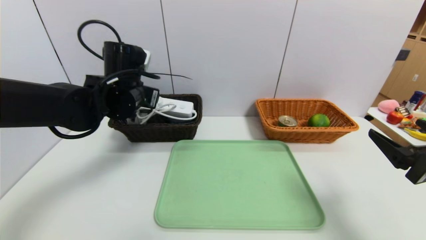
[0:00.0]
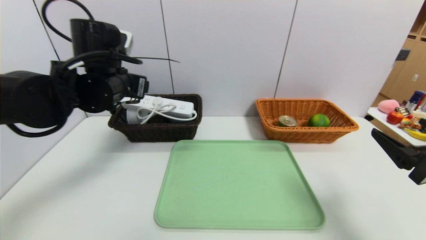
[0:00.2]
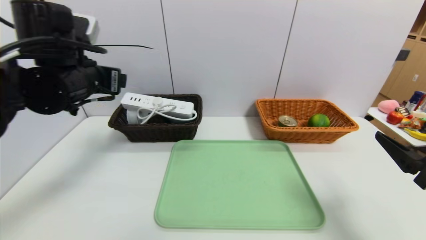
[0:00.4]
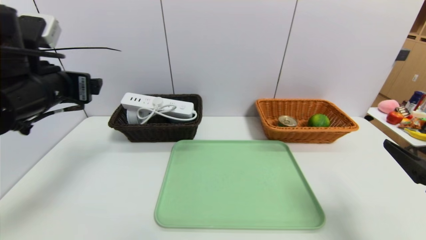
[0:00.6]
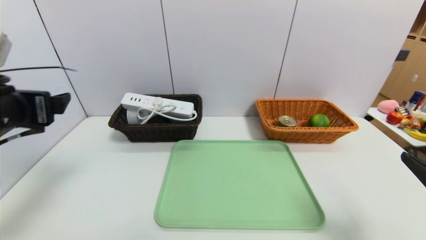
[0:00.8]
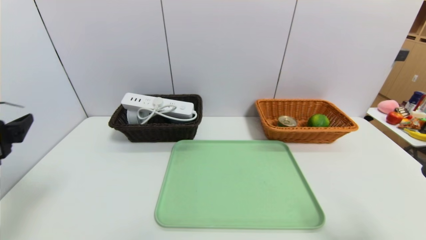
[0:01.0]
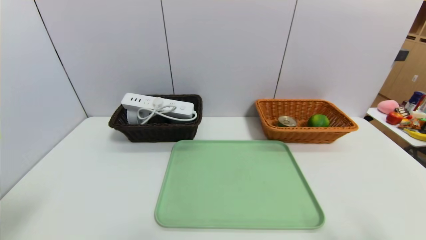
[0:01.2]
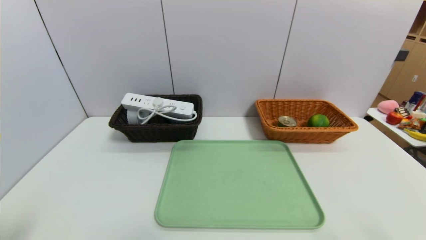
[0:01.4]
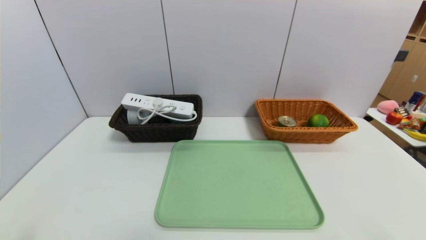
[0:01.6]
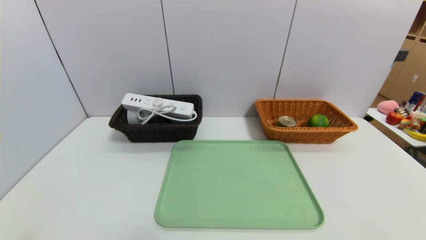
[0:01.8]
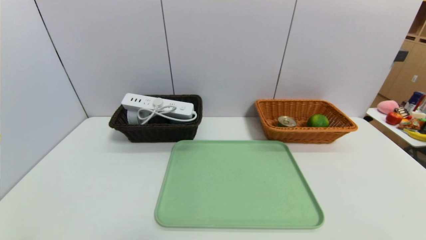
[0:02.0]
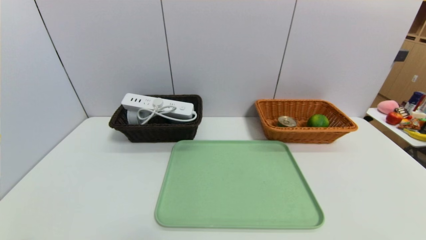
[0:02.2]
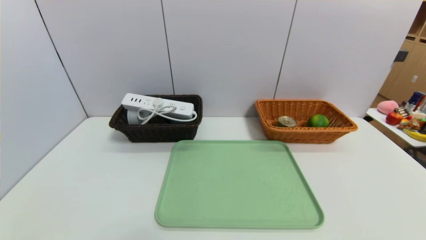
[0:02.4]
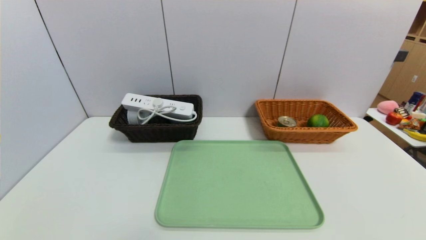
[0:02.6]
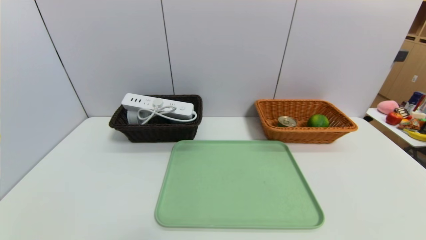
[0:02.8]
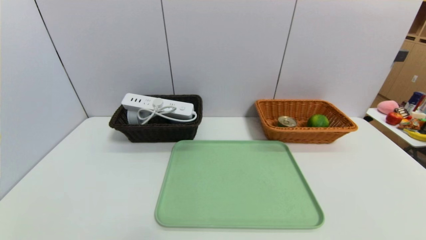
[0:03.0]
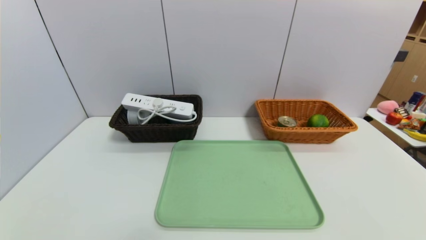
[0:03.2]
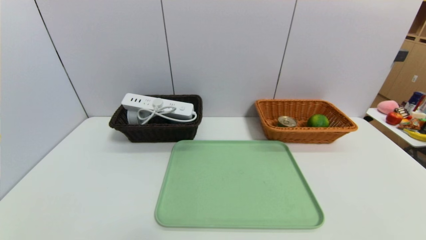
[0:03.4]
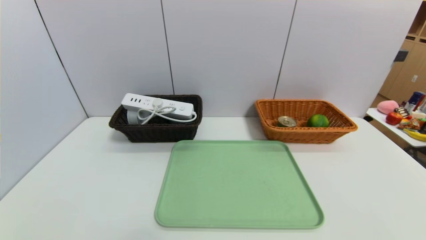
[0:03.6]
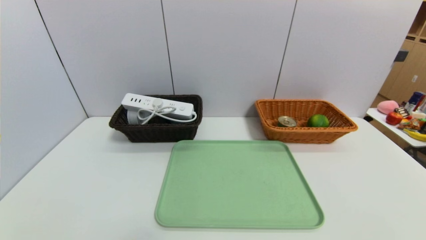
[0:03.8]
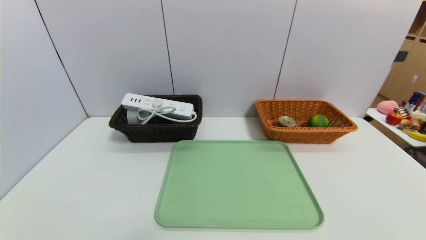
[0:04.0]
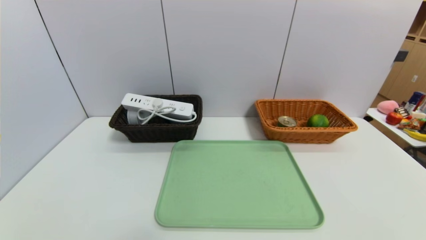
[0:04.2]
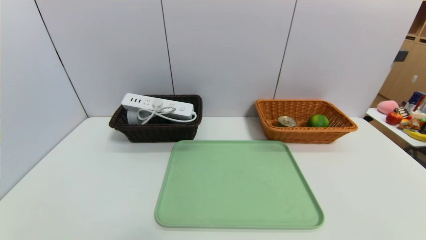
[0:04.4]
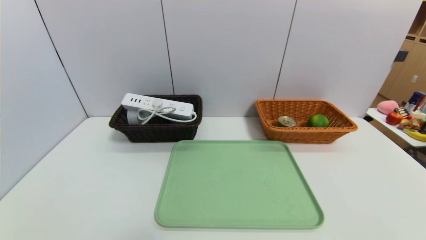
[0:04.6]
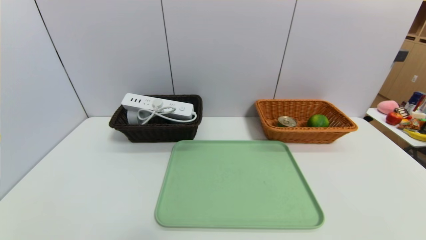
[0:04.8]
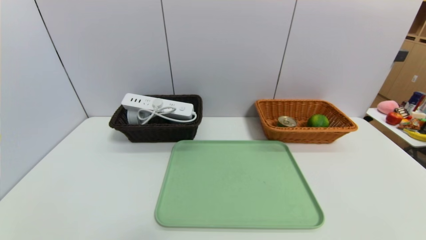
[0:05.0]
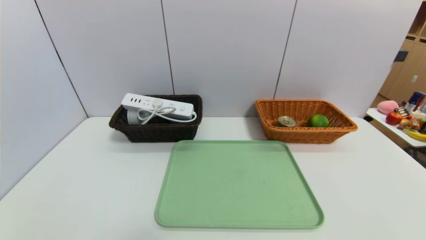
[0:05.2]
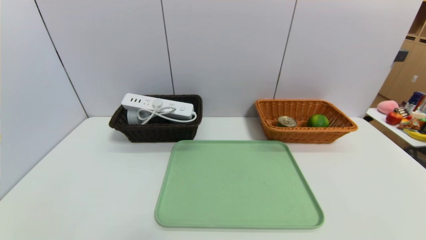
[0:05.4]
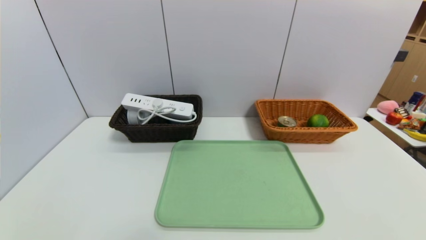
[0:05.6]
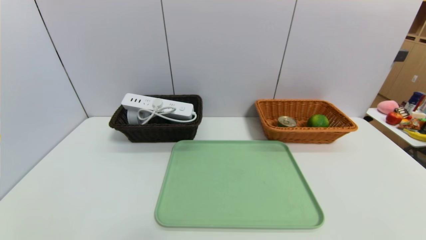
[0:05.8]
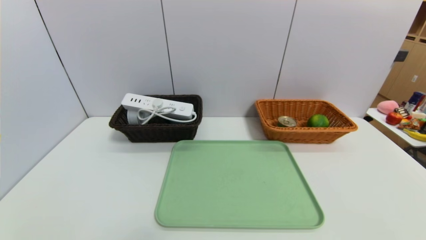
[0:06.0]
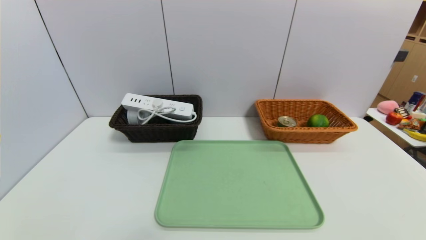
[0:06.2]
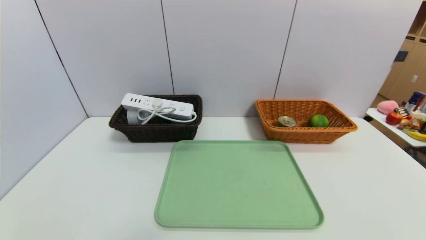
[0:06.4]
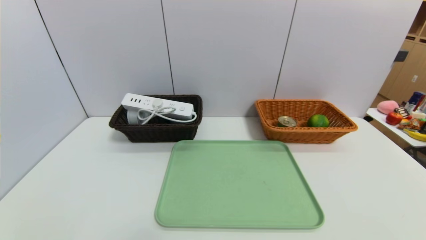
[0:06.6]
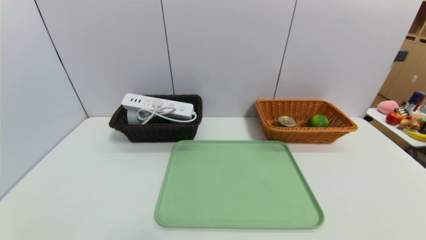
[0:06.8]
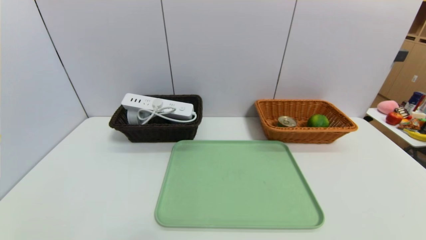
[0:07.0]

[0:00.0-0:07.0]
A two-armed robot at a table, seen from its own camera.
Task of the whole recording: place the food in the right basket with the right gripper, and place the non food items in the left basket with the left gripper.
0:00.0 to 0:01.4: The left gripper is displaced backward and to the left by roughly 35 cm. Meanwhile the right gripper heads backward, covering some 10 cm.
0:04.2 to 0:07.0: Both grippers stay about where they are.

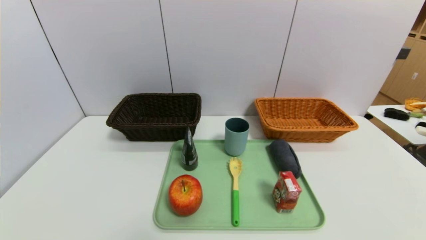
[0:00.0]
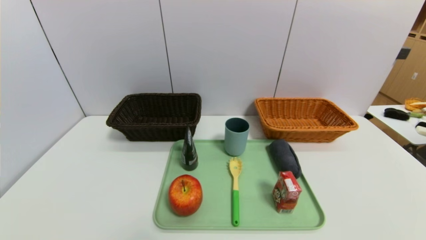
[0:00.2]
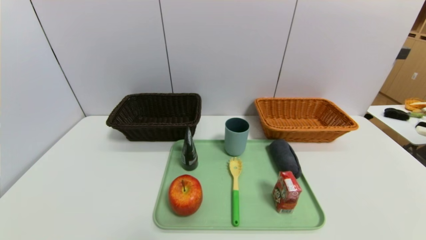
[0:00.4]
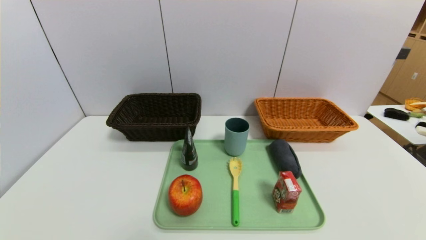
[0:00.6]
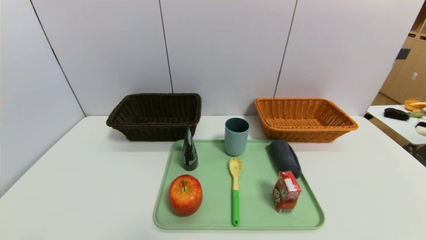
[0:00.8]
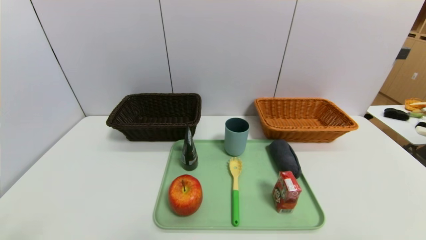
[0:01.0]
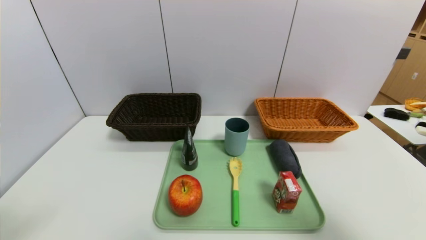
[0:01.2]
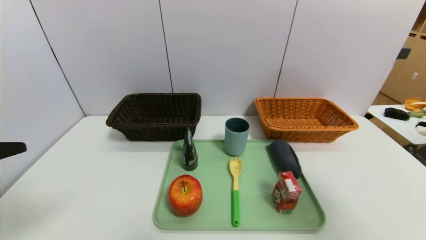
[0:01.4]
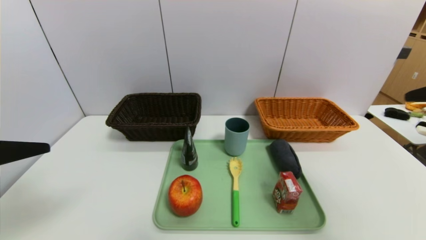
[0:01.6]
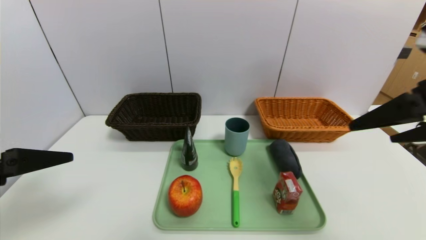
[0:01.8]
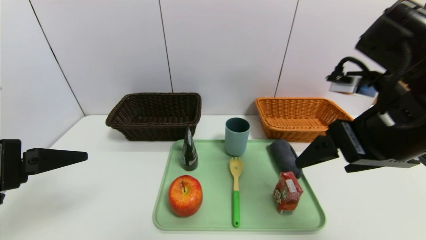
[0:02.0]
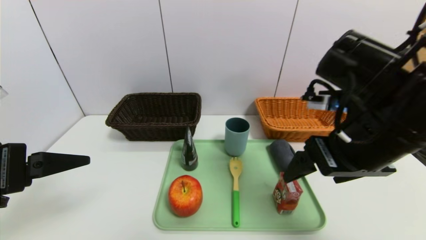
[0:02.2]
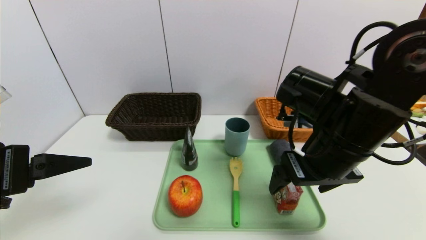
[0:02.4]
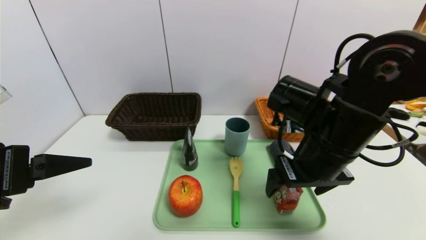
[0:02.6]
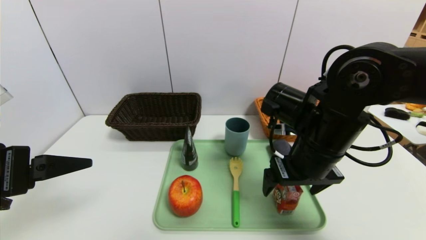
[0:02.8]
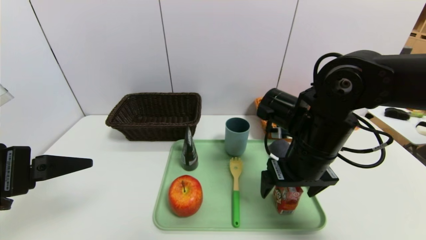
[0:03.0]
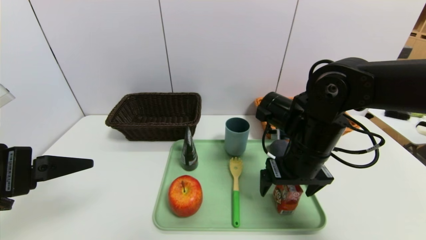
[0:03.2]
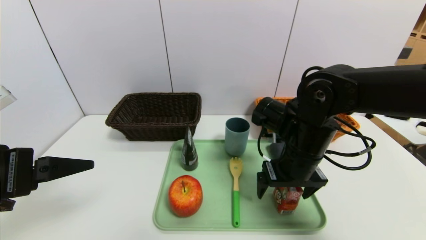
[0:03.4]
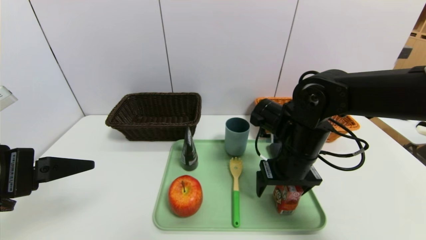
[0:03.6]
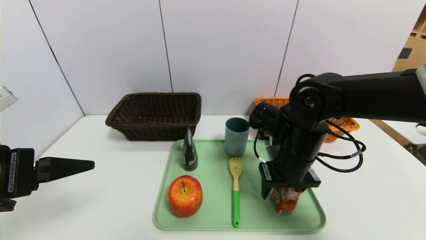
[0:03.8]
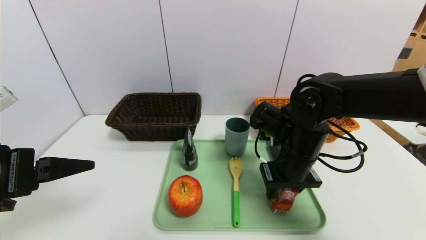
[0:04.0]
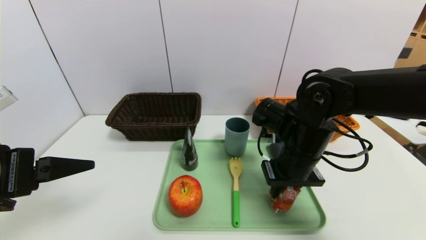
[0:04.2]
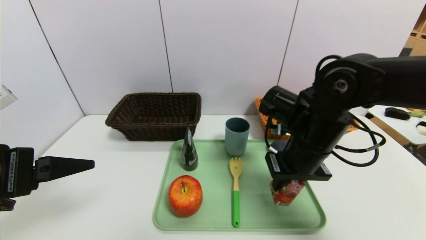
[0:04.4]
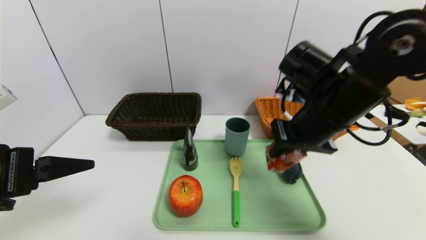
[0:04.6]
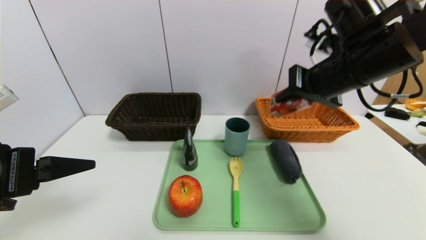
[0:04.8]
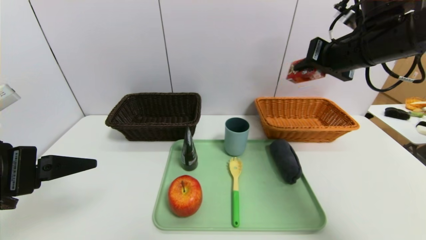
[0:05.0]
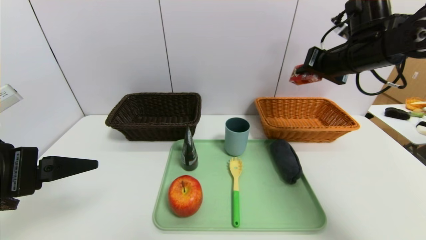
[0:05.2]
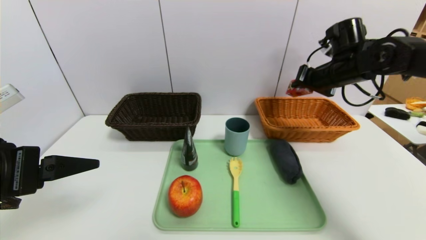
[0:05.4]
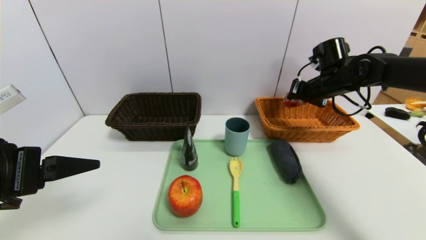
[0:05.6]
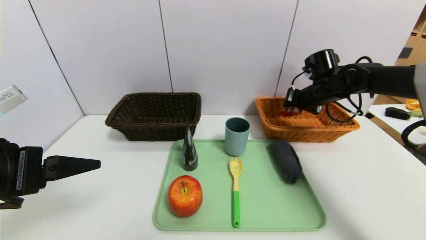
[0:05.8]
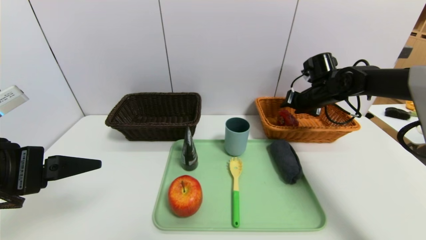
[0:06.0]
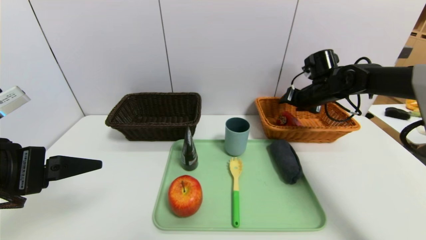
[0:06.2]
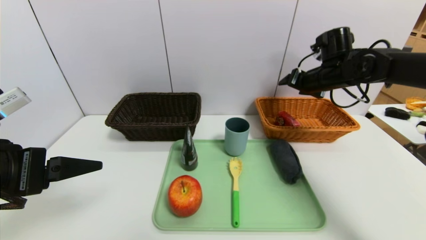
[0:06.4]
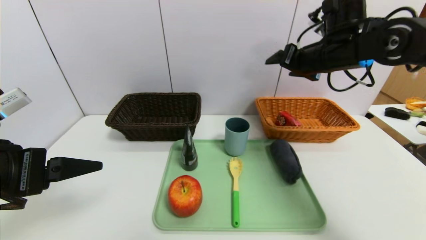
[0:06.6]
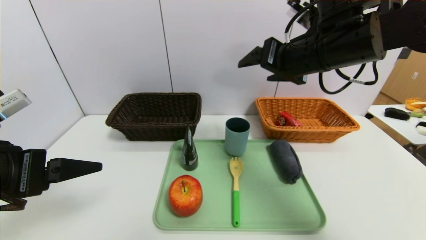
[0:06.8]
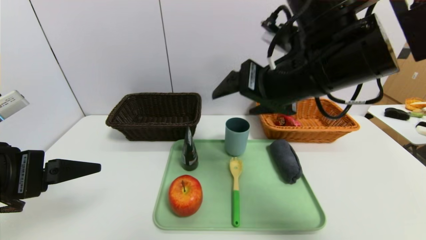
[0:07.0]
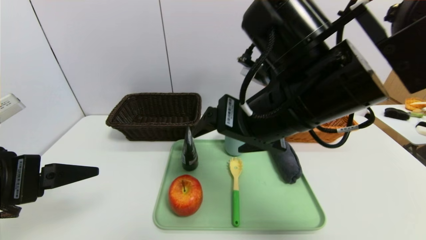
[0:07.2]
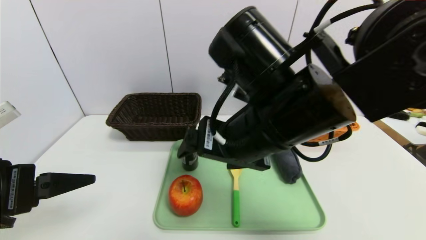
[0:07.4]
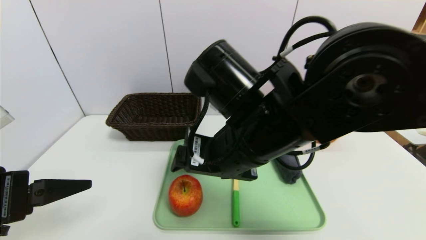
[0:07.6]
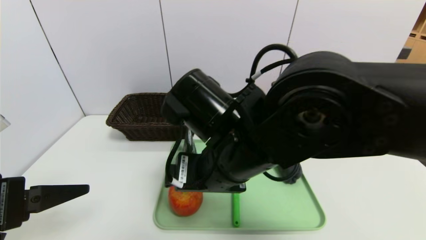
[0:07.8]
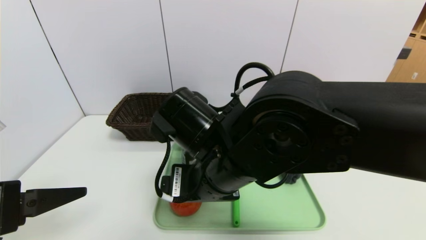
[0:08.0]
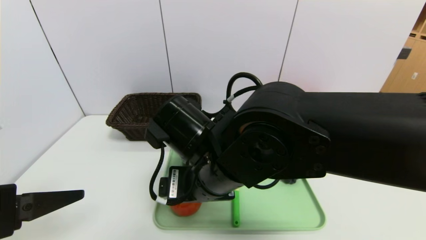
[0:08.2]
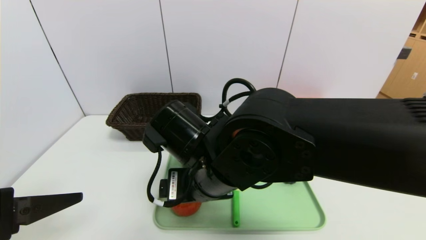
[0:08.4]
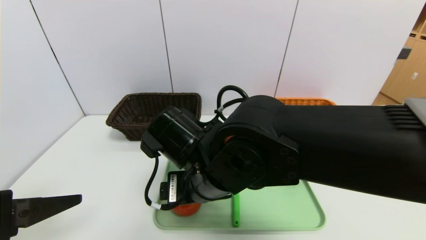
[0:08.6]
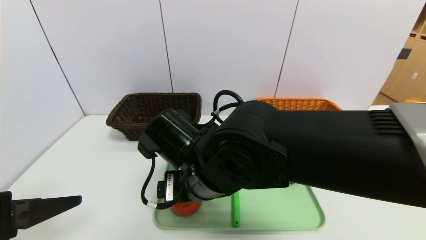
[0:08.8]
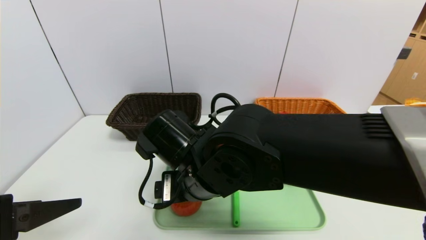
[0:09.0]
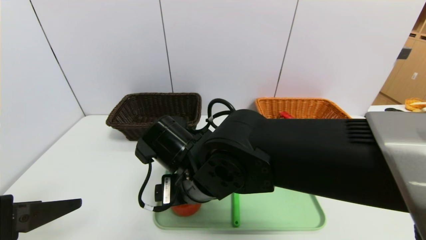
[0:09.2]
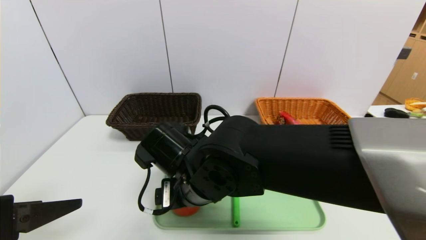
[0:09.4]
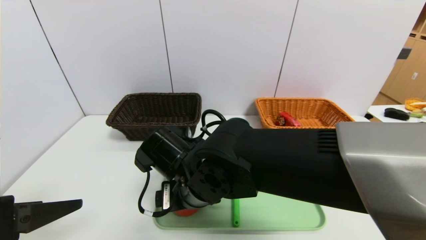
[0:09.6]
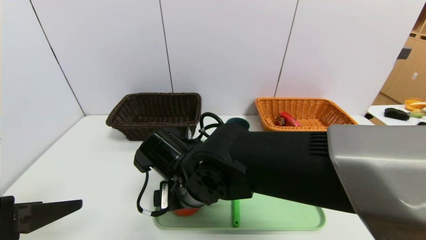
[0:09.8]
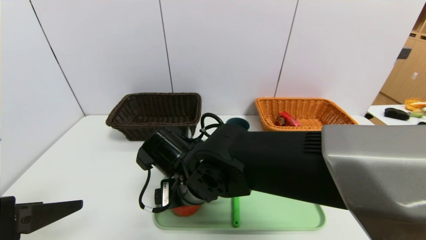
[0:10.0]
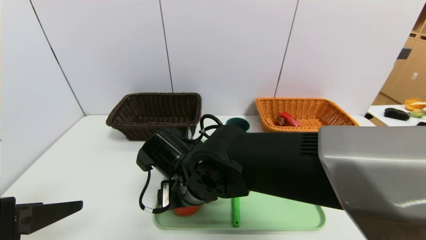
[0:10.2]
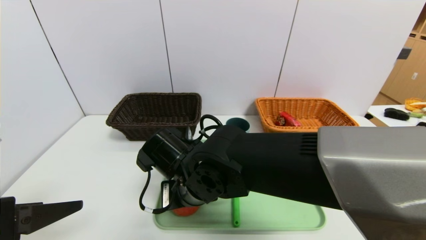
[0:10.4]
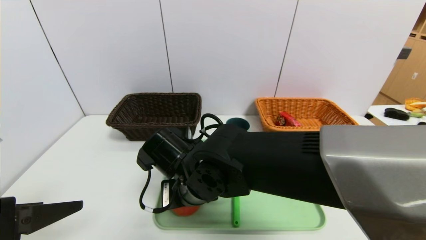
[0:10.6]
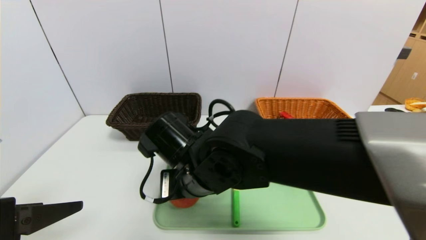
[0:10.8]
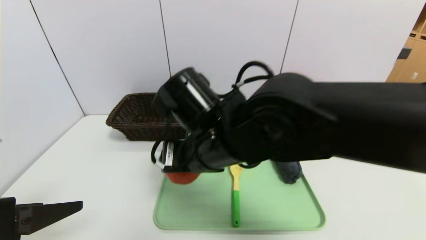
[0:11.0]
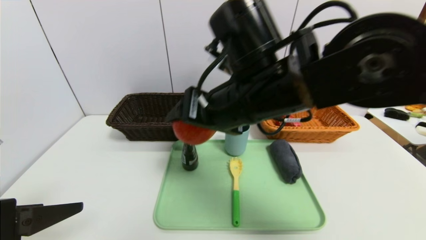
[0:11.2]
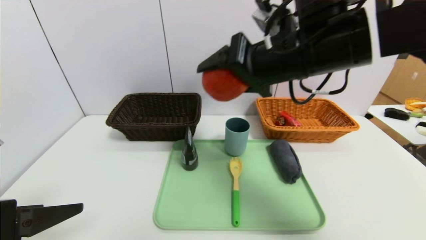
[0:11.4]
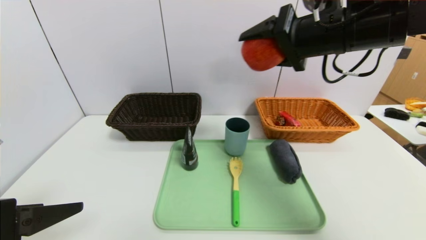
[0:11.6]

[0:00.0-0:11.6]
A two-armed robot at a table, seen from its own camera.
Task of the whole recording: place the food in the right basket with the right gripper, and place the non food items in the left basket with the left gripper.
Step, 0:00.0 to 0:06.6: Grasp the milk and put it in the right basket.
0:00.0 to 0:01.4: The grippers both shift upward by about 25 cm.
0:01.4 to 0:02.8: The left gripper goes roughly 5 cm forward. The right gripper moves to the left, forward and downward, approximately 30 cm.
0:02.8 to 0:04.4: The right gripper closes up.
0:04.4 to 0:05.8: The right gripper moves forward and to the right, about 20 cm.
0:05.8 to 0:07.2: The right gripper heads backward, to the left and upward, covering some 35 cm, and opens its fingers.
0:07.2 to 0:08.8: The right gripper moves downward and to the left, some 15 cm.
0:10.2 to 0:11.6: The right gripper moves to the right and upward, approximately 30 cm.
